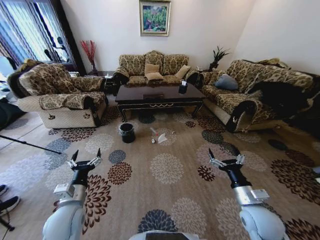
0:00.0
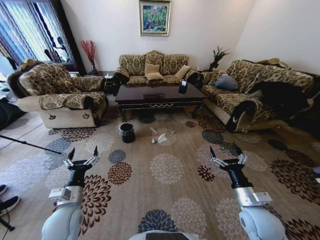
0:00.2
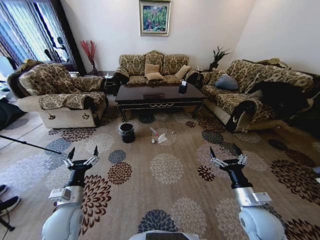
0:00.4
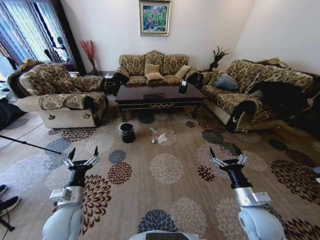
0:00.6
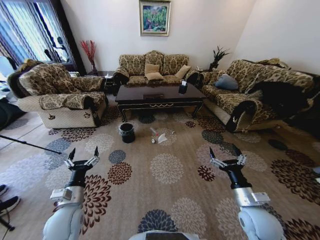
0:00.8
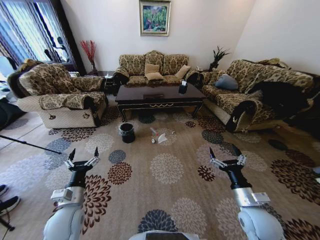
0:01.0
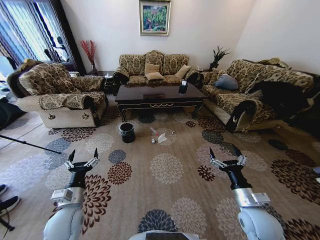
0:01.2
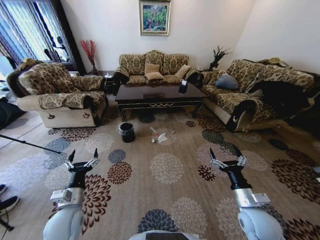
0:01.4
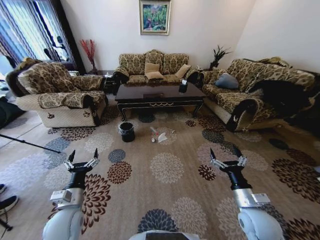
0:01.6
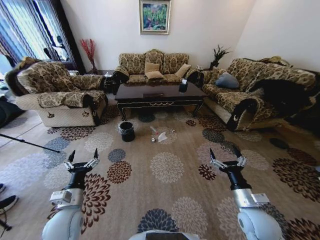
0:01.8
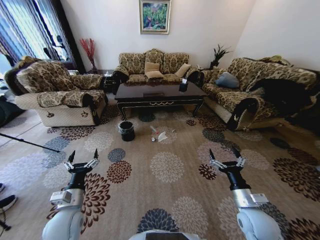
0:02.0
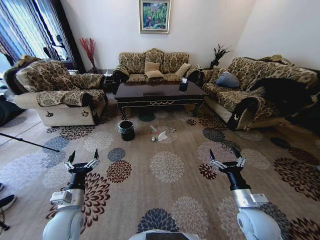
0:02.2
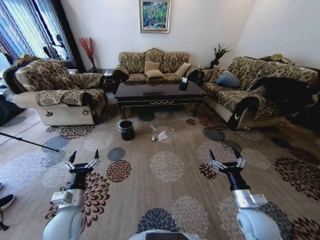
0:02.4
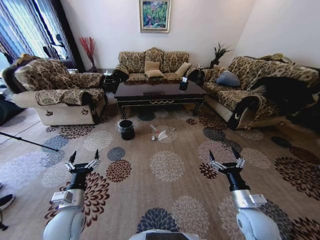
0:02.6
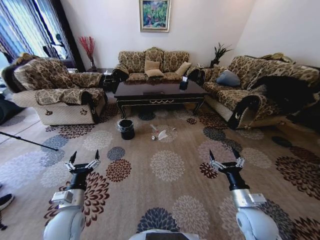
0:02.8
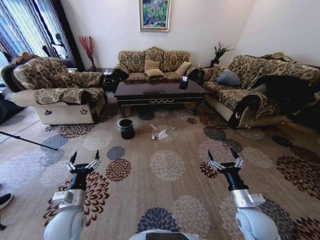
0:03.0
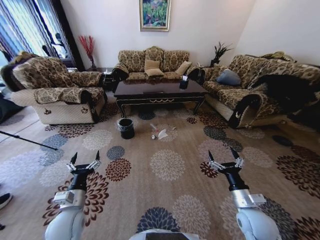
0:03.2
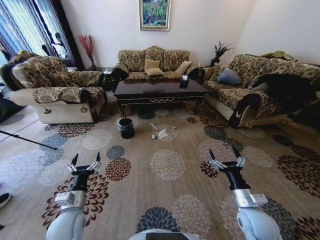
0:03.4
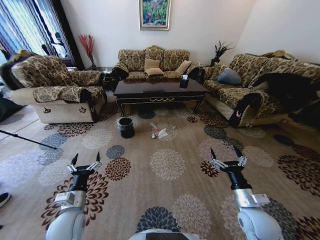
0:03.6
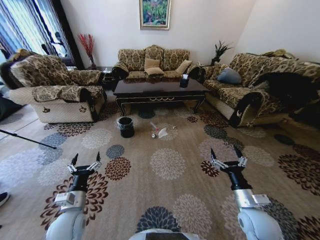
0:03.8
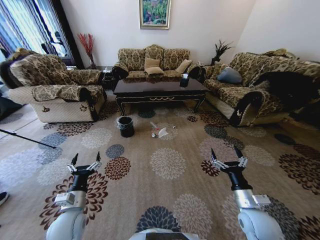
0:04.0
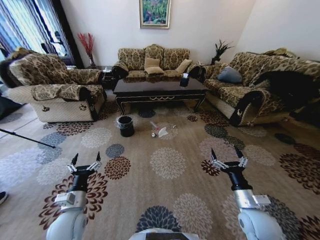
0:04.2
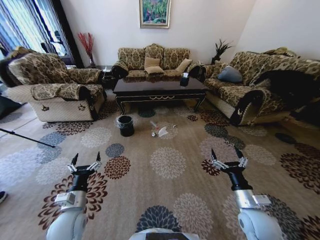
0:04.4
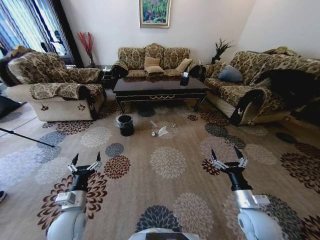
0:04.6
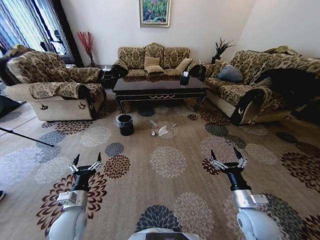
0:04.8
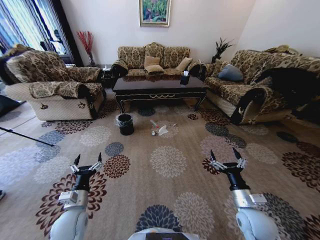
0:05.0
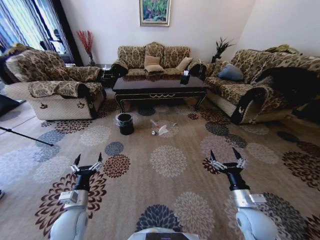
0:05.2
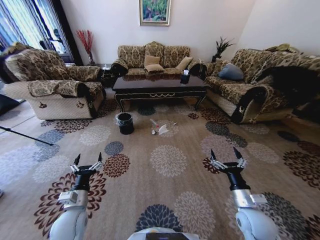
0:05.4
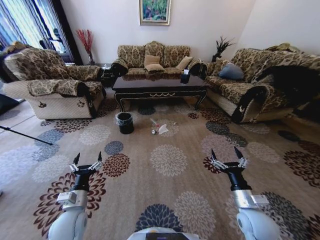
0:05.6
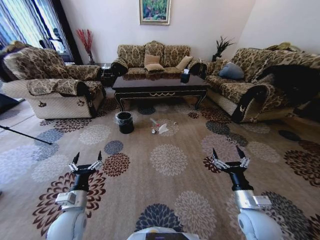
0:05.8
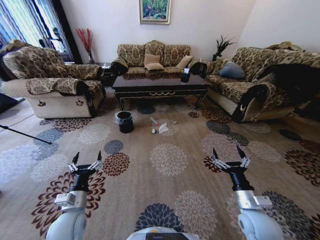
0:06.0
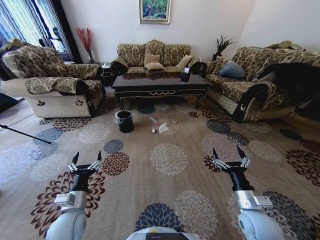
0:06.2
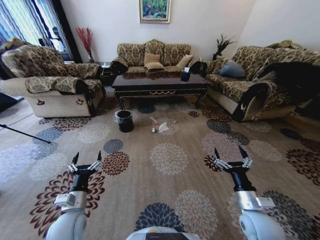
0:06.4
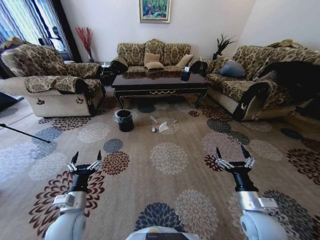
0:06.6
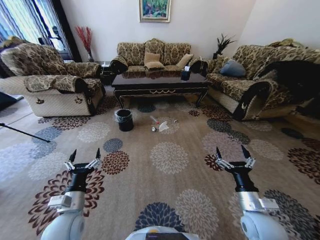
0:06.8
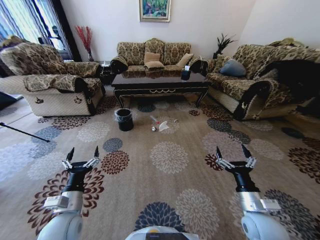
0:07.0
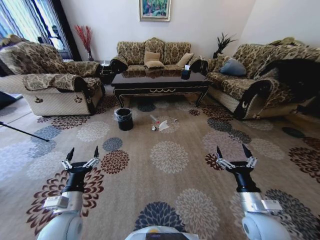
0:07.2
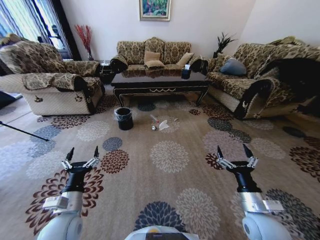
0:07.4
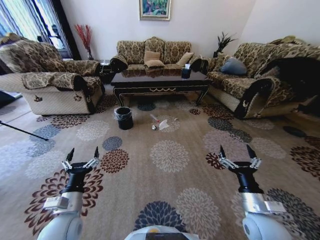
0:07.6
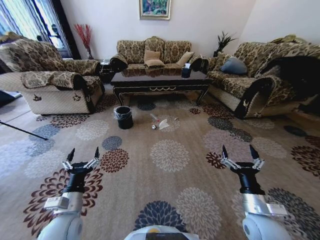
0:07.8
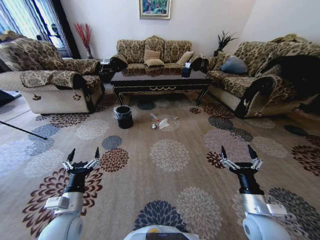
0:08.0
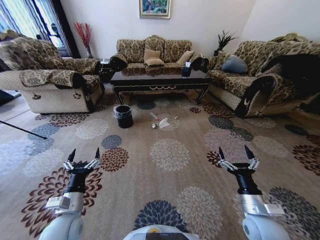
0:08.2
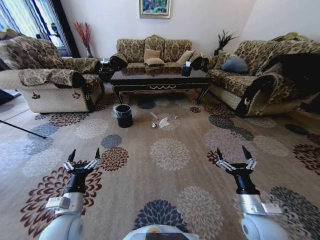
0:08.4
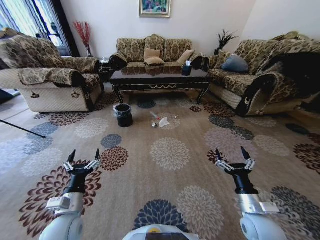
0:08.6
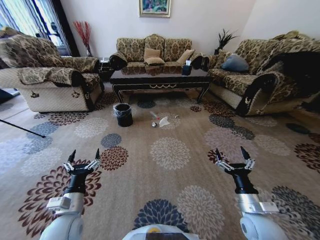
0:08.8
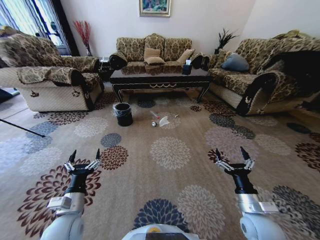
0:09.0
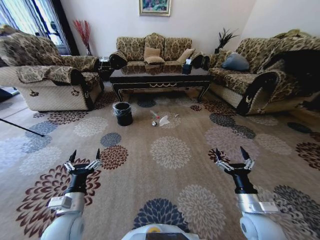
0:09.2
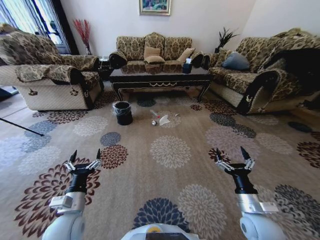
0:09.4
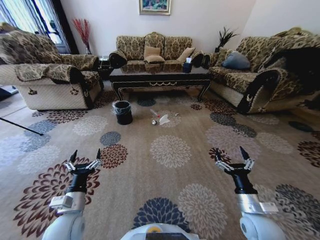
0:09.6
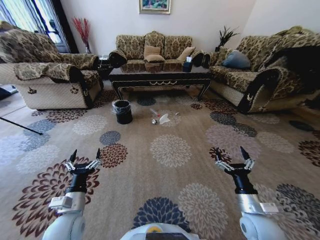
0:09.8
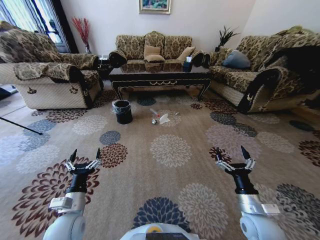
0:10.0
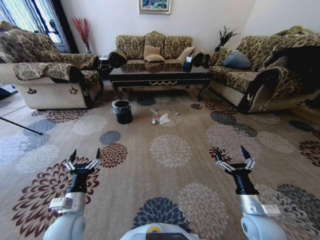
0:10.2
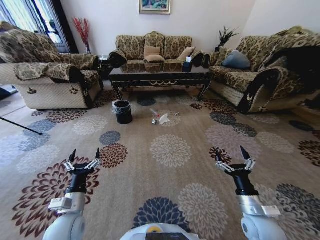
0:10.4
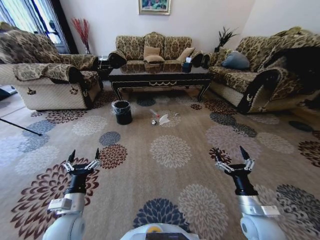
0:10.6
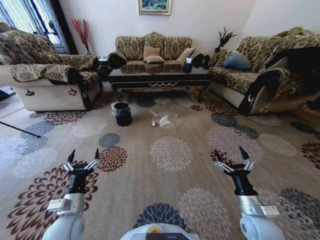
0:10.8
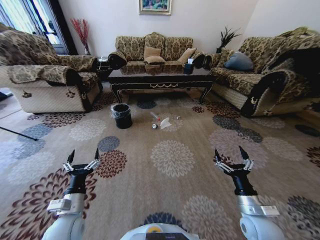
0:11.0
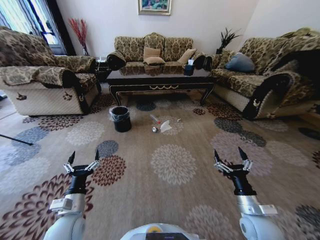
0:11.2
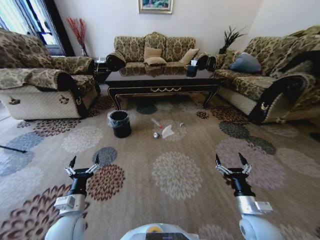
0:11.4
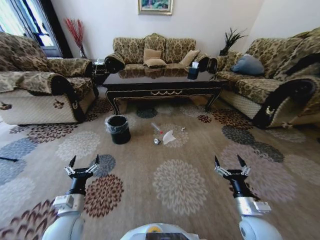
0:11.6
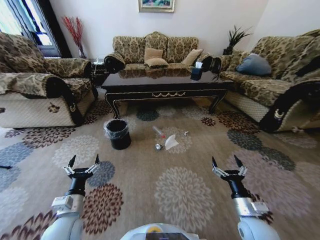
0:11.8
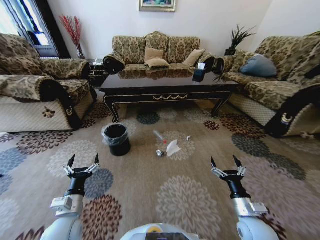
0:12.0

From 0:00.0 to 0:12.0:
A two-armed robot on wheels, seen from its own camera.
Task of the whole recording: Move to the front of the table and pick up the trash from the floor, then place it into the trash bin.
From 0:09.0 to 0:10.4: The two grippers keep their place.

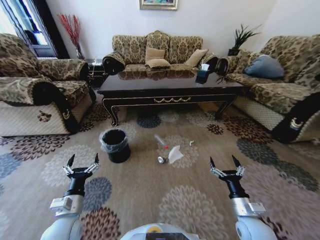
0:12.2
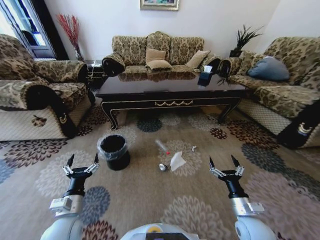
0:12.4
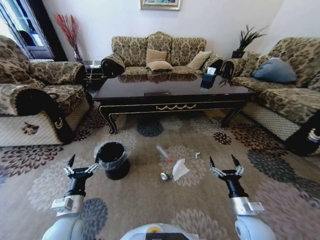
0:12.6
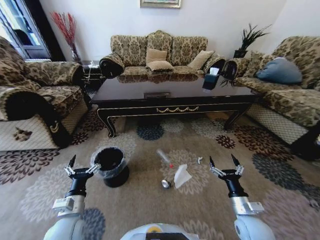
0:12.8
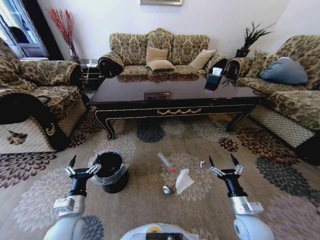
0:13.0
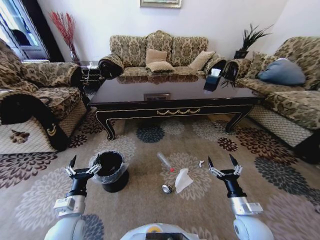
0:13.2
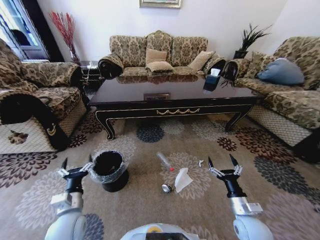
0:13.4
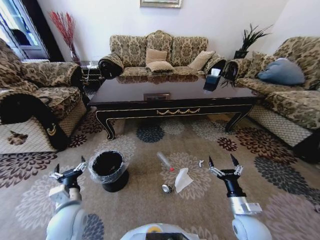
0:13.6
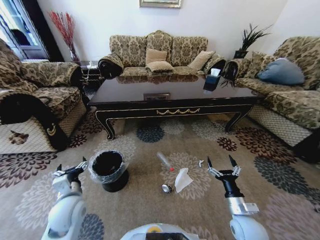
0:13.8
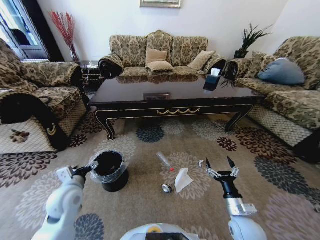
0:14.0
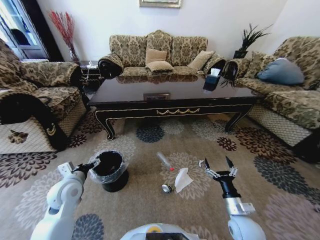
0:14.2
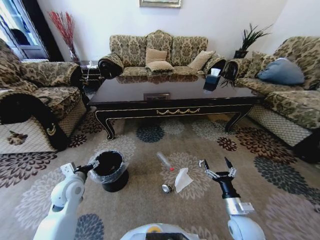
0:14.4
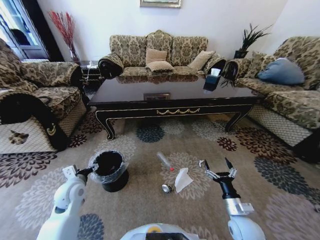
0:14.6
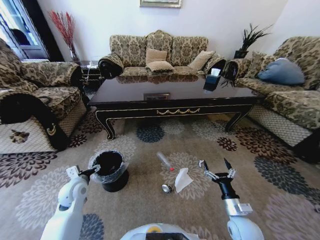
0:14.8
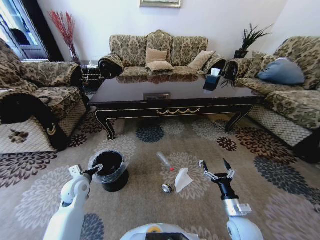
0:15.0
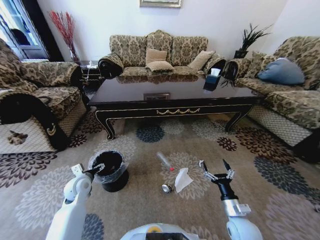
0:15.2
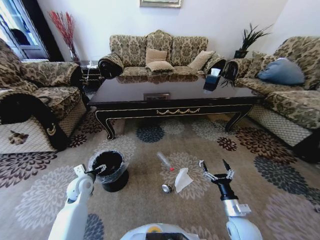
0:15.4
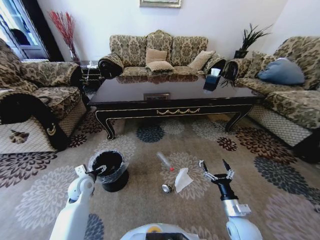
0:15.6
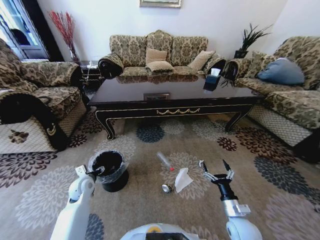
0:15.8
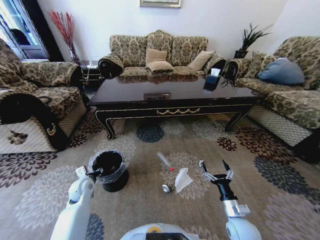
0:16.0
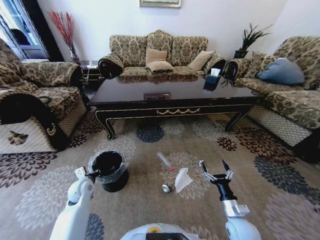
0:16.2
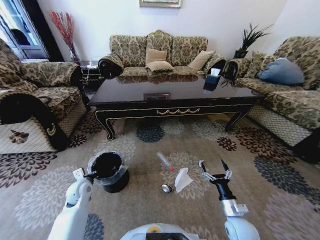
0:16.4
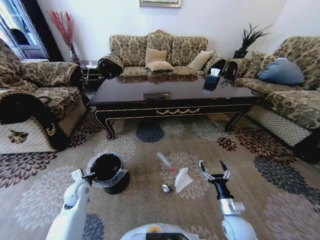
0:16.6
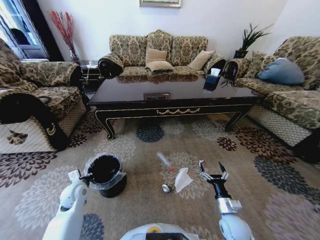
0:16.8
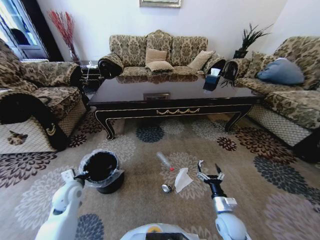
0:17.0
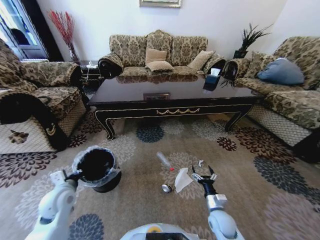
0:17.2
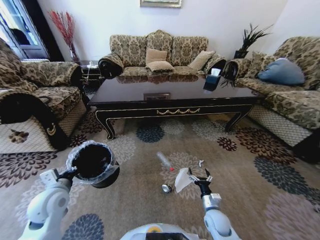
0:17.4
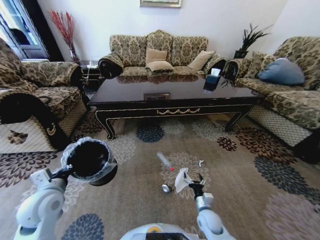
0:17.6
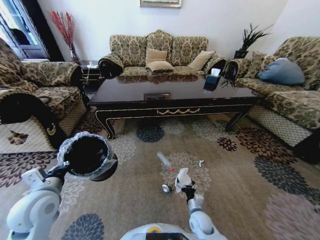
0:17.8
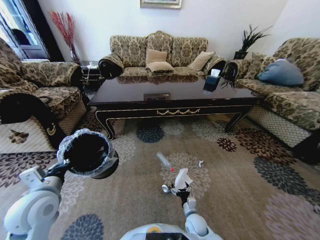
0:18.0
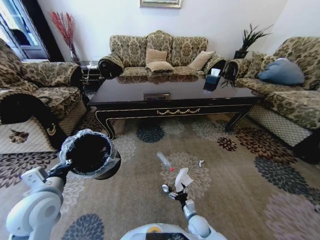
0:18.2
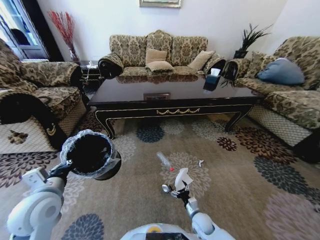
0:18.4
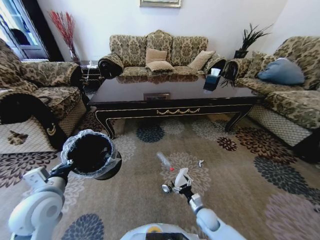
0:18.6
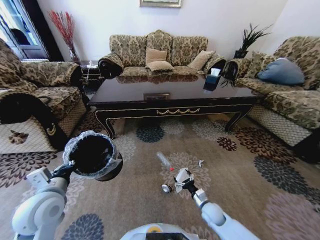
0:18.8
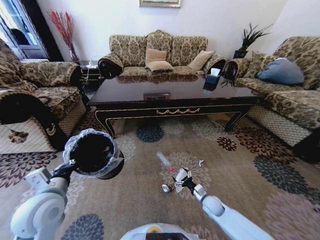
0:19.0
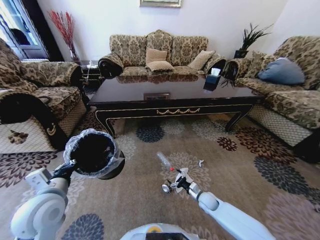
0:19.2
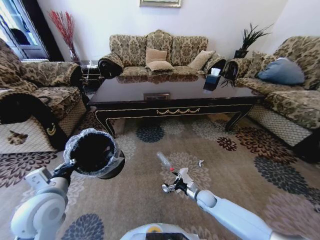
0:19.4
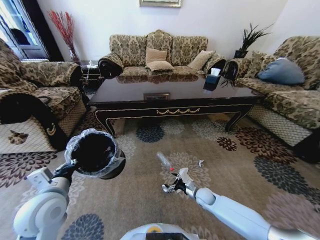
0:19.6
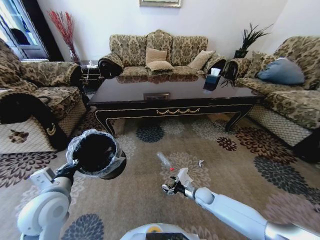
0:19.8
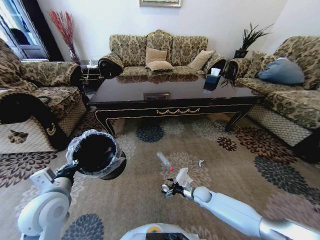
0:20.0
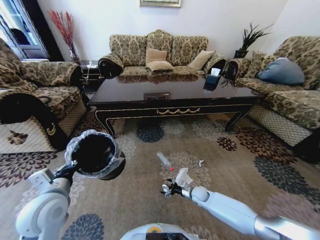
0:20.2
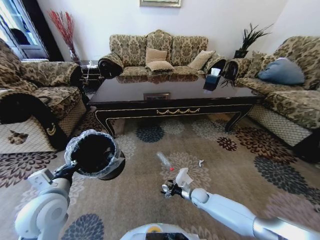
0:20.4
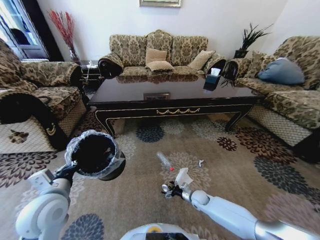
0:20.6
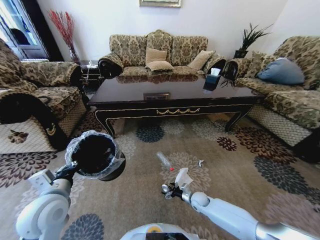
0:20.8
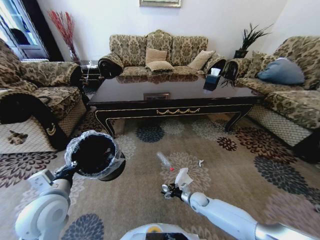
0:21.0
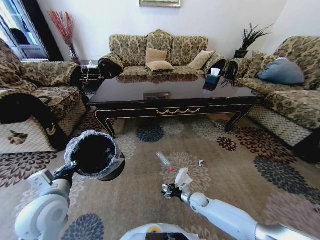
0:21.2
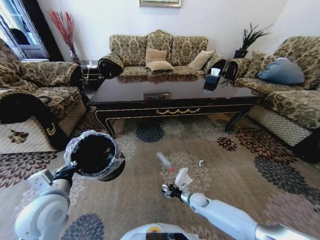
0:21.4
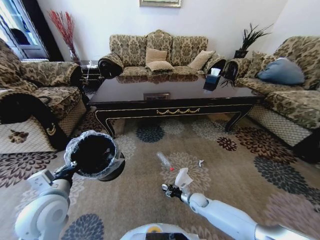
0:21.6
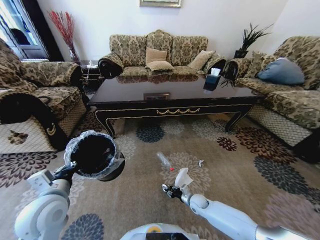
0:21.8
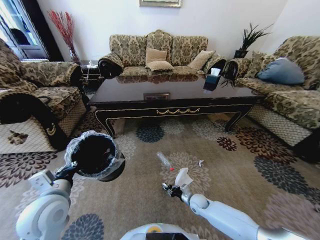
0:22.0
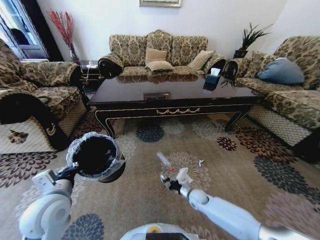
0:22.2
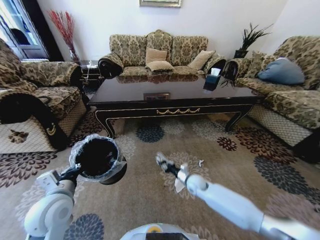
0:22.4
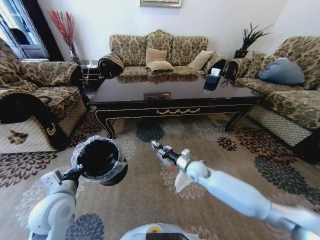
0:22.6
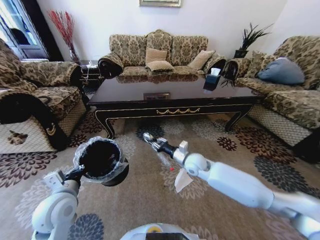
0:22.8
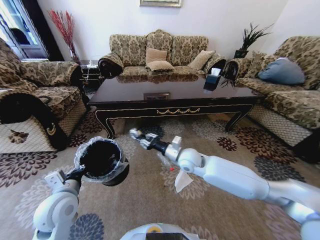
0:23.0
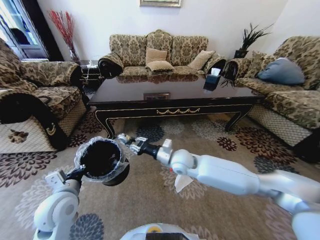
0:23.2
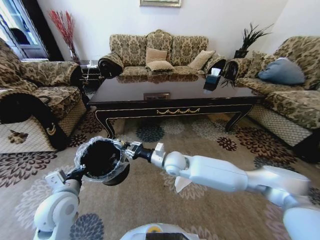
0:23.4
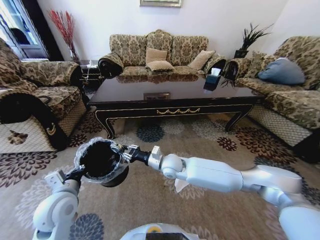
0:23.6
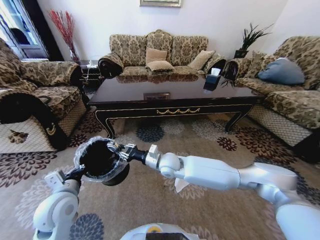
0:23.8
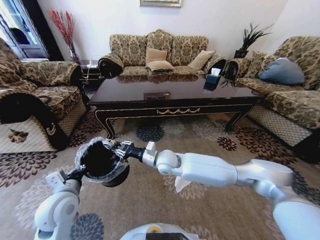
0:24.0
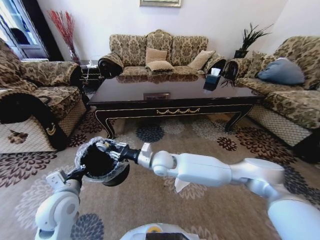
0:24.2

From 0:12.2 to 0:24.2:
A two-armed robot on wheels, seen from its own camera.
Task of the whole recording: Move to the front of the table and pick up the trash from the floor, then place it into the trash bin.
From 0:12.2 to 0:13.8: The left gripper moves forward, about 5 cm.
From 0:13.8 to 0:15.2: The left gripper is displaced forward and downward by approximately 10 cm.
From 0:15.2 to 0:16.6: The left gripper closes.
From 0:16.6 to 0:18.2: The right gripper heads downward and to the left, covering roughly 20 cm. The left gripper goes roughly 20 cm upward and backward.
From 0:18.2 to 0:19.8: The right gripper shifts roughly 15 cm forward and to the right.
From 0:21.2 to 0:22.6: The right gripper travels upward by approximately 20 cm, and closes its fingers.
From 0:22.6 to 0:24.2: The right gripper travels to the left and upward by some 20 cm.
